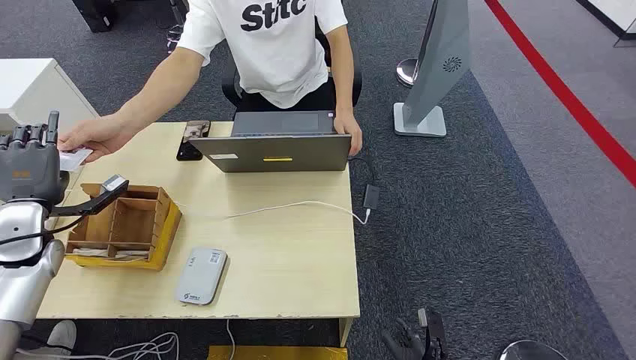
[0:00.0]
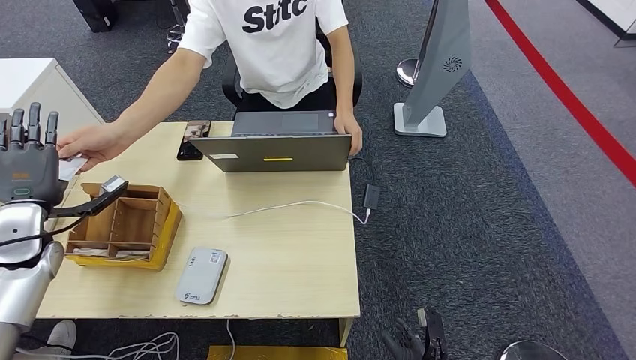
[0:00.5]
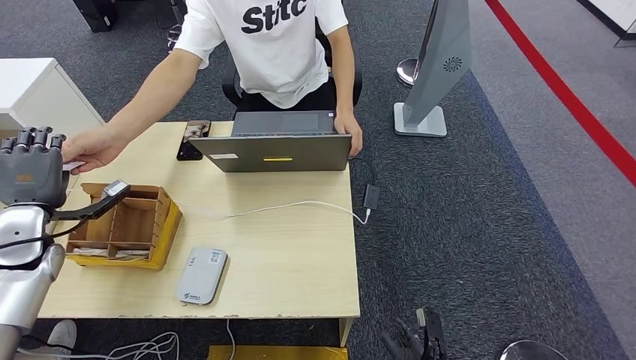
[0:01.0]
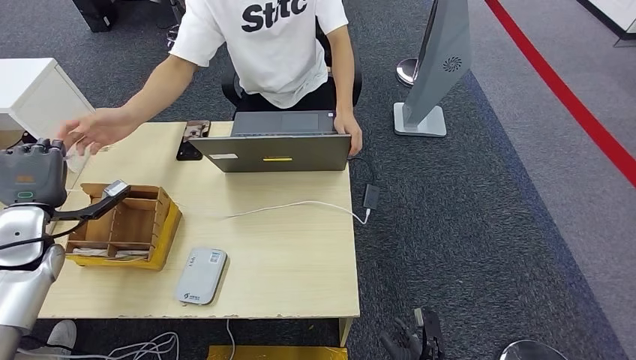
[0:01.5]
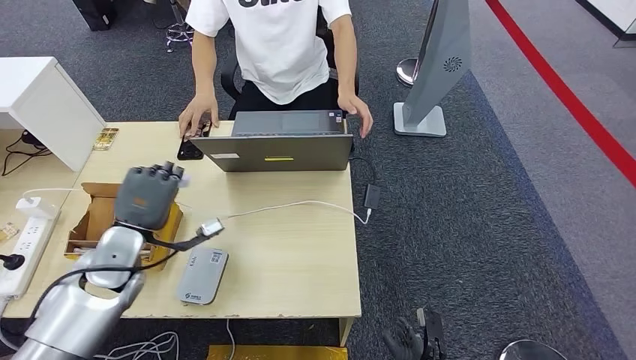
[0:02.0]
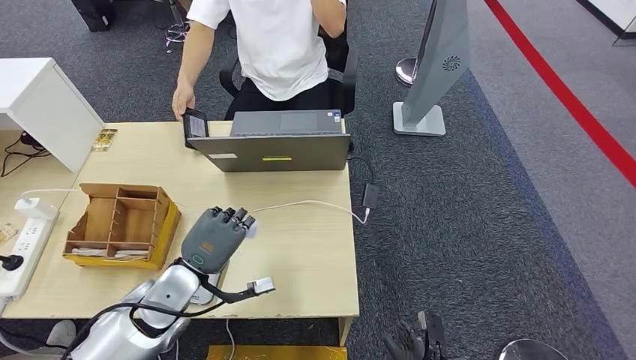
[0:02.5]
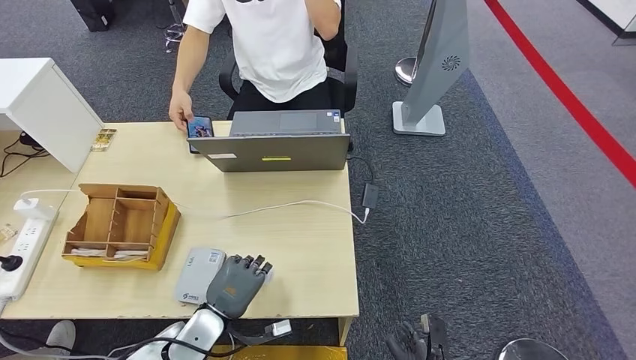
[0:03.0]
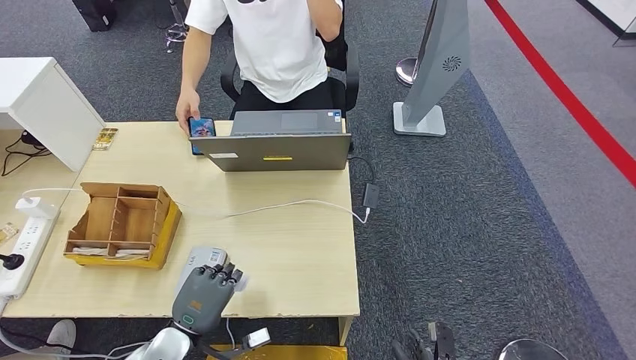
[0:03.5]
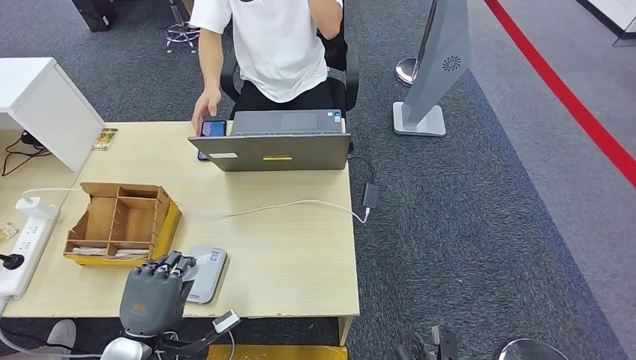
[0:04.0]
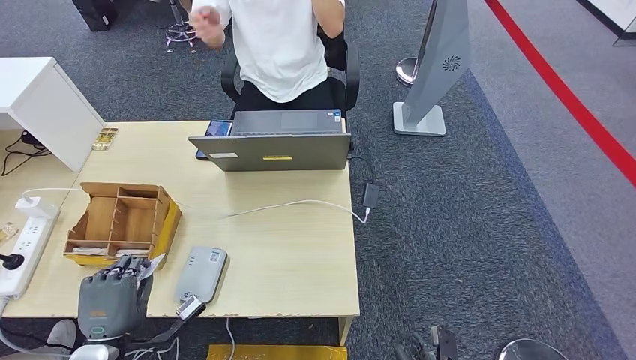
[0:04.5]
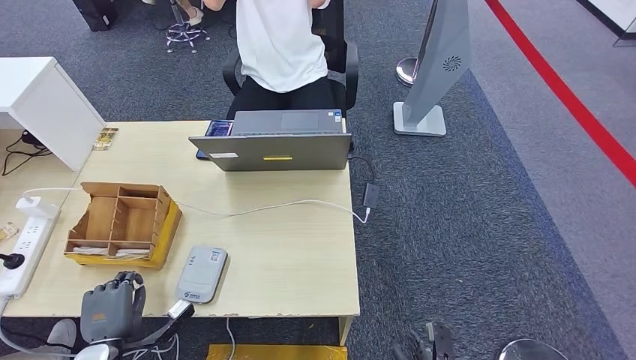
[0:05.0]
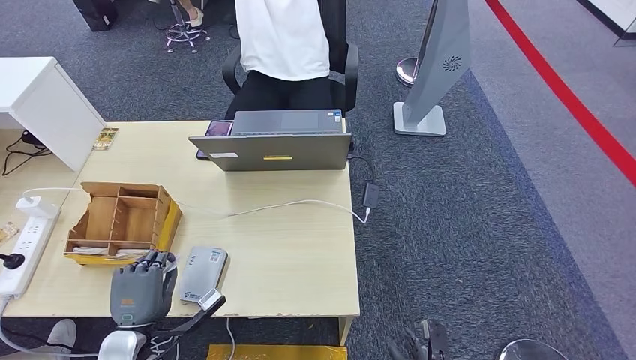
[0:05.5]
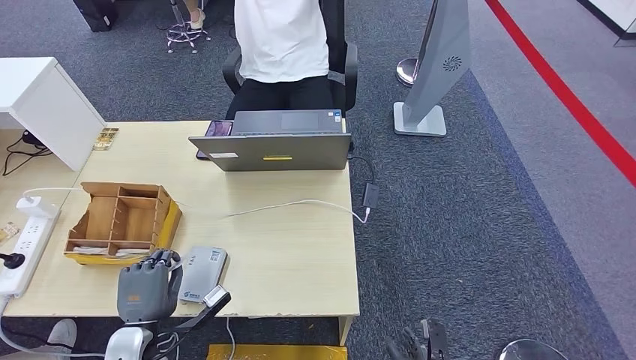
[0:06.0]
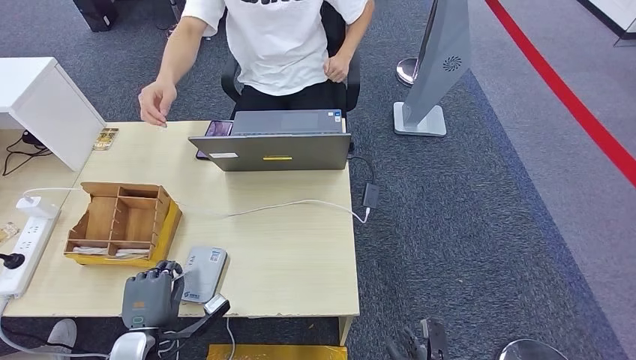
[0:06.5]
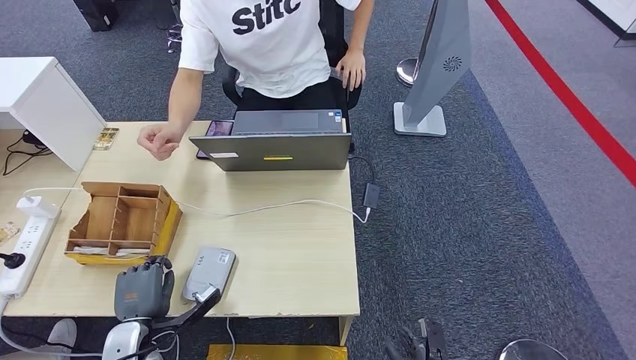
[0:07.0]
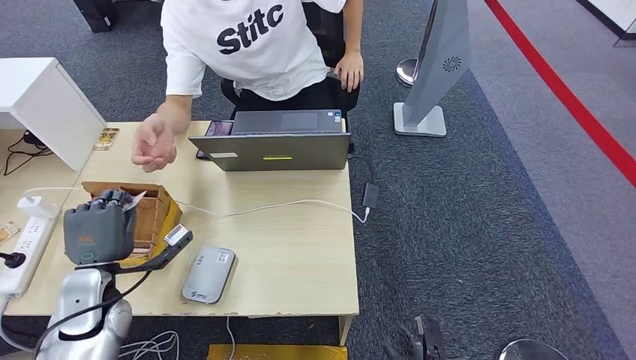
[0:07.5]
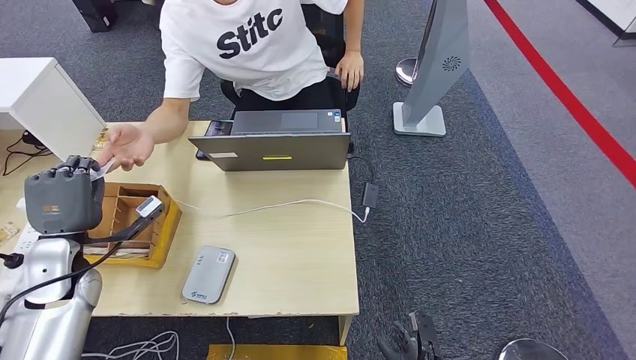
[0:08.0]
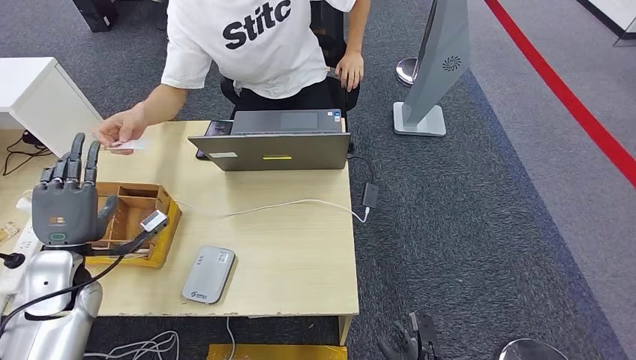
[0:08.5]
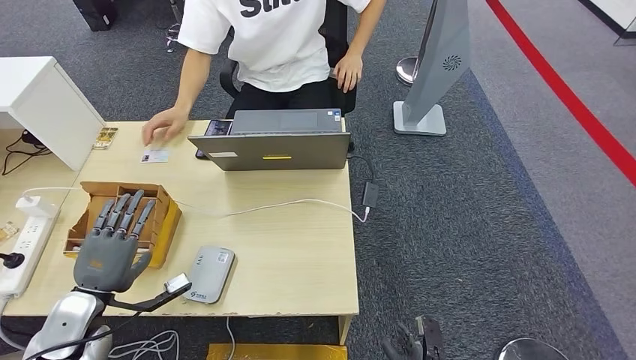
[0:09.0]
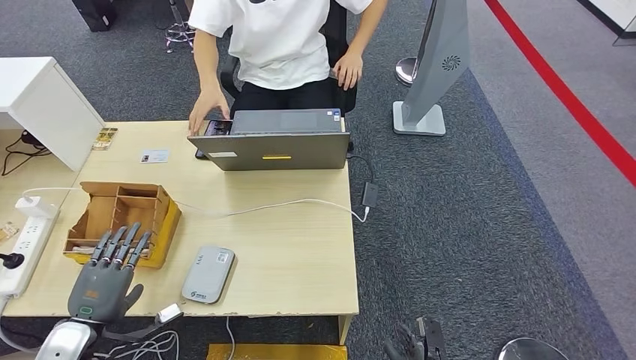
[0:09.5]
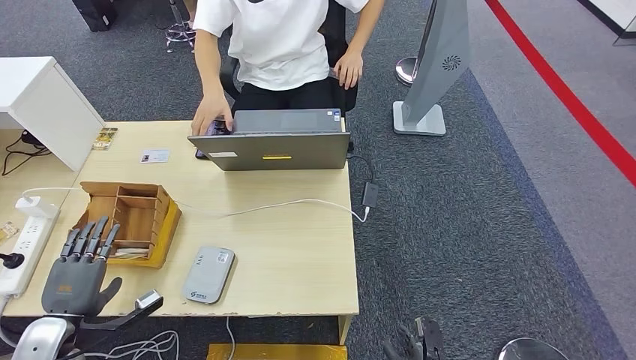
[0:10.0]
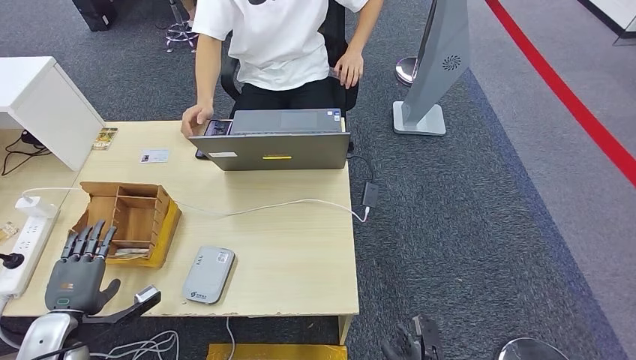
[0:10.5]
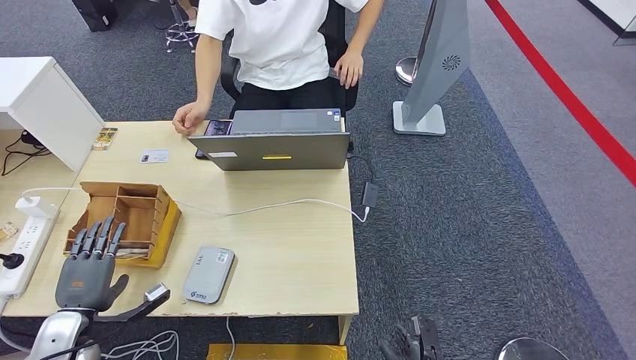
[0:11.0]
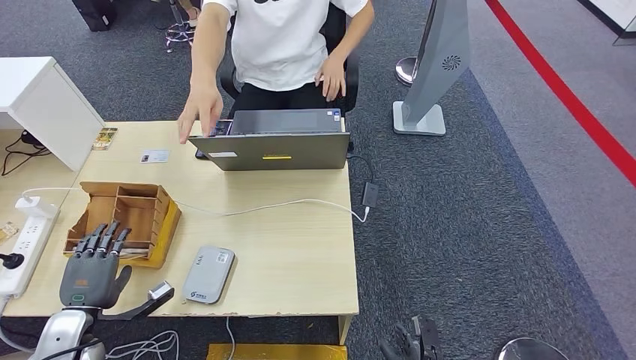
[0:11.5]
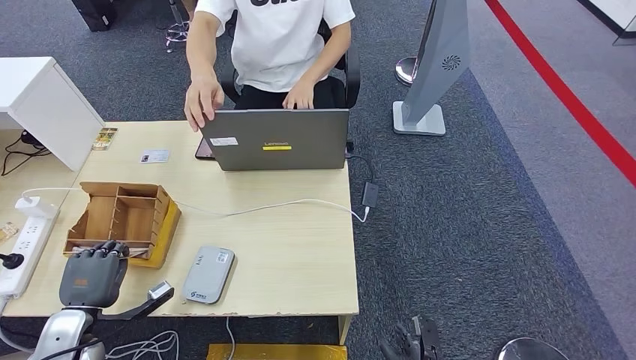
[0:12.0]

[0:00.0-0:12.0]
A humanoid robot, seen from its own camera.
Step, 0:00.0 to 0:02.0: Take the ID card from the person's hand.
Step, 0:02.5 to 0:06.0: Place the ID card on the card reader.
Step, 0:06.5 to 0:09.5: Hand the ID card to the person.
0:02.0 to 0:04.0: The left hand heads backward and downward, covering some 15 cm.
0:04.0 to 0:06.0: The left hand moves about 10 cm to the left and comes back.
0:08.0 to 0:10.0: The left hand is displaced backward and downward by approximately 15 cm.
0:10.0 to 0:12.0: The hands make only small movements.

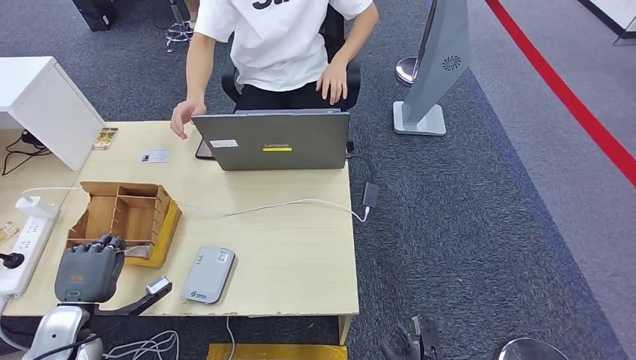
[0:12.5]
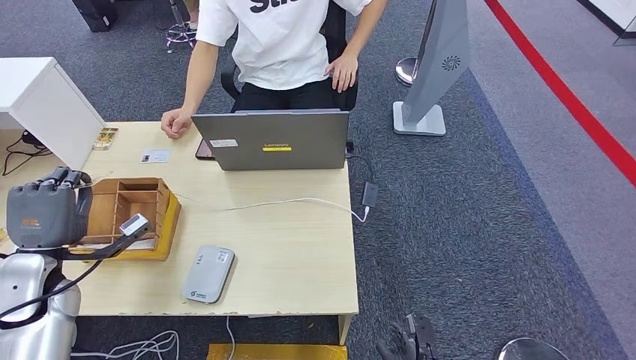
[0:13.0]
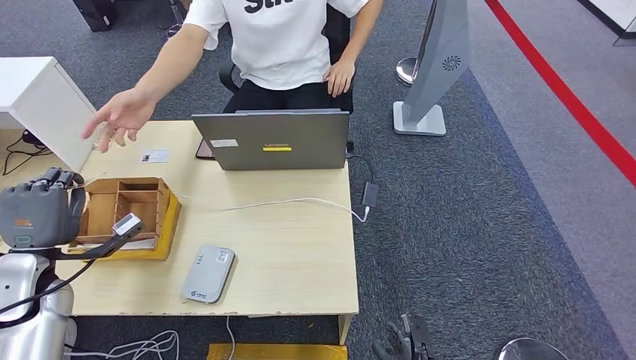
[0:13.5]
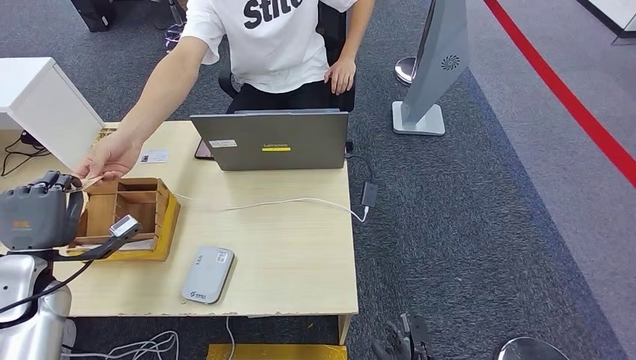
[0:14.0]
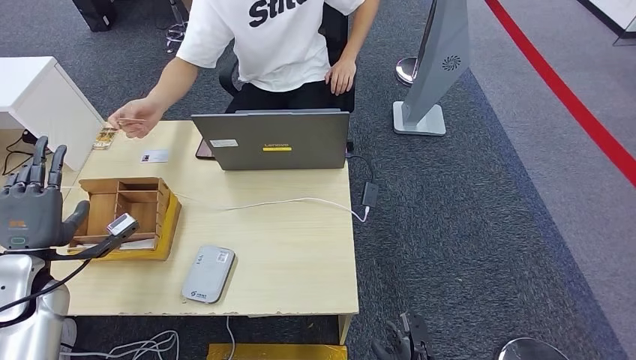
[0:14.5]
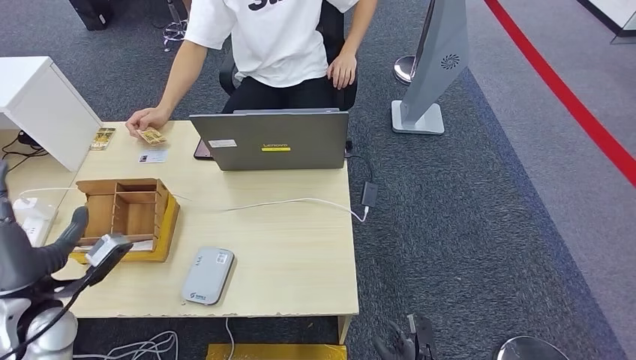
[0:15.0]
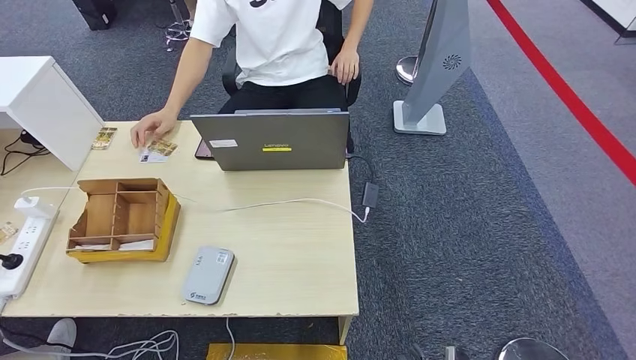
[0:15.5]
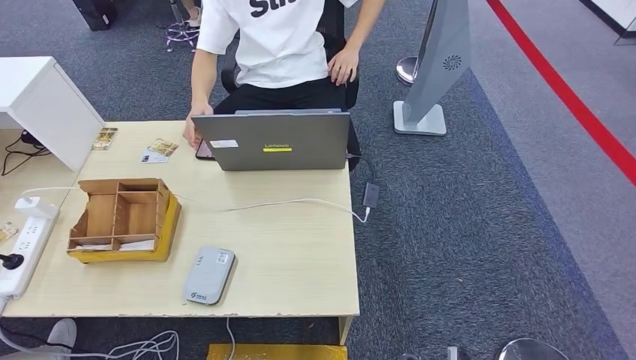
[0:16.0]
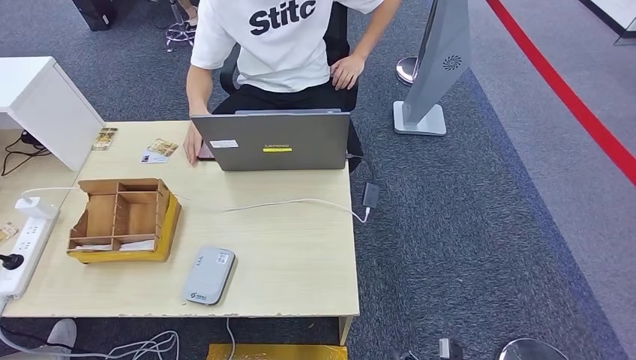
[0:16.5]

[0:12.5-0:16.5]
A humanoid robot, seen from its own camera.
Step, 0:14.0 to 0:16.5: Hand the room key to the person.
0:12.5 to 0:14.5: The left hand moves upward and forward, about 10 cm.
0:14.5 to 0:16.5: The right hand shifts by about 5 cm; the left hand travels backward and downward by some 40 cm.

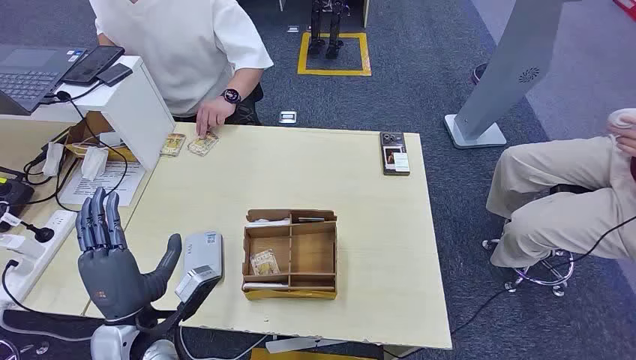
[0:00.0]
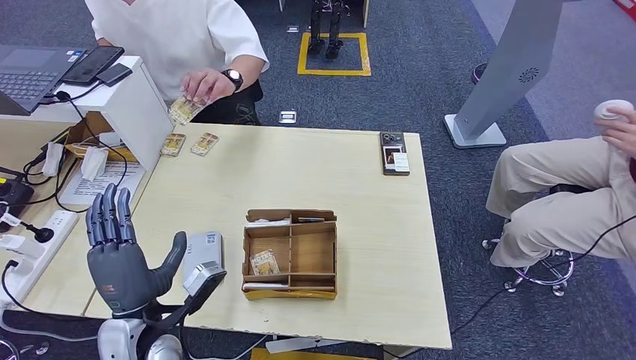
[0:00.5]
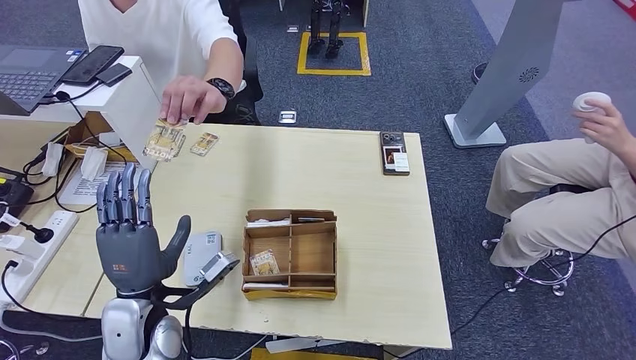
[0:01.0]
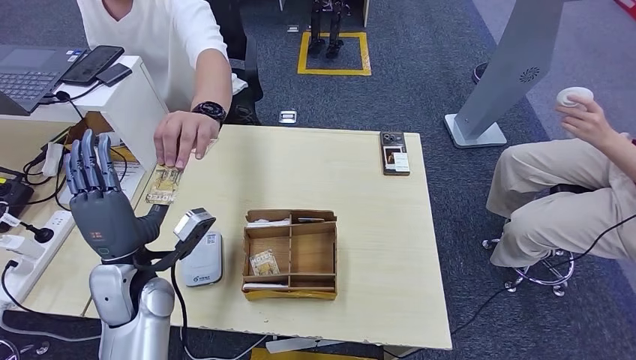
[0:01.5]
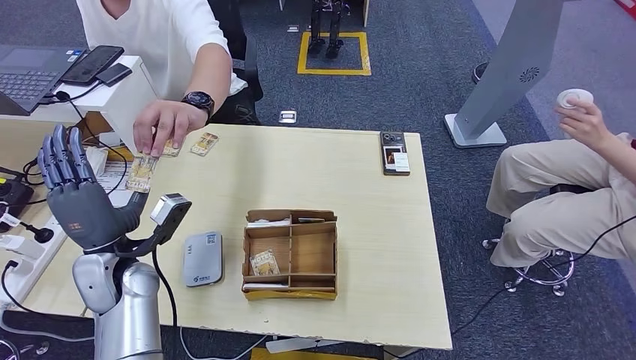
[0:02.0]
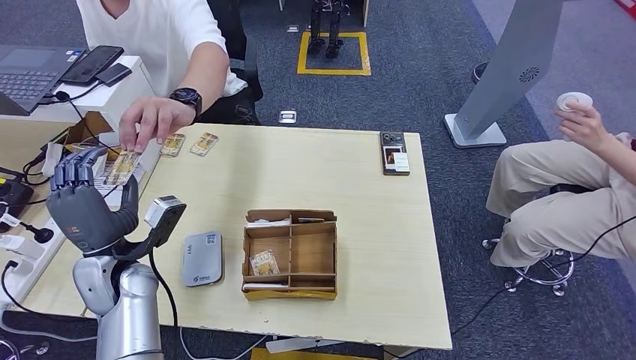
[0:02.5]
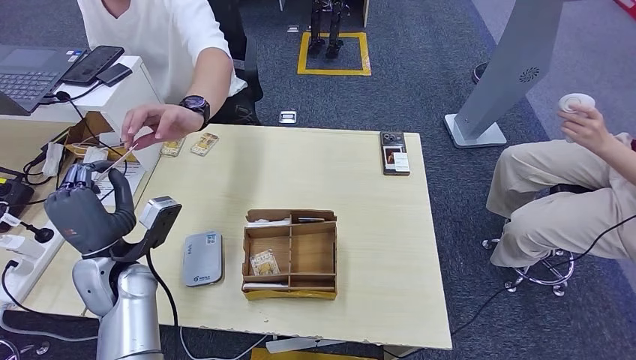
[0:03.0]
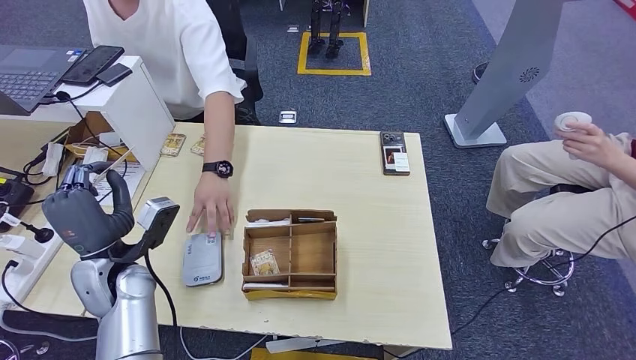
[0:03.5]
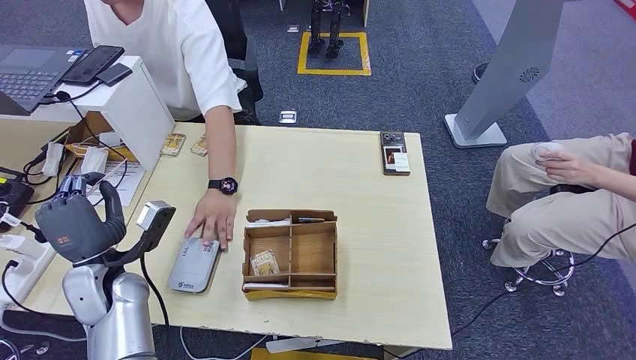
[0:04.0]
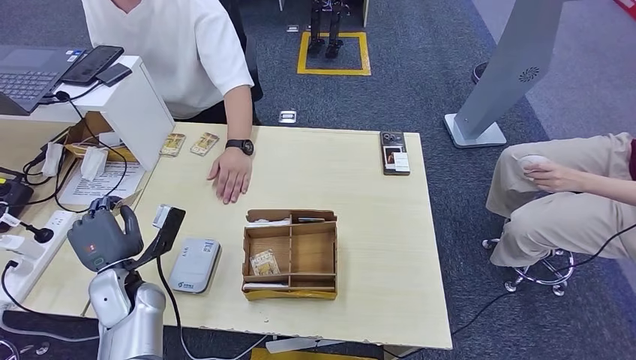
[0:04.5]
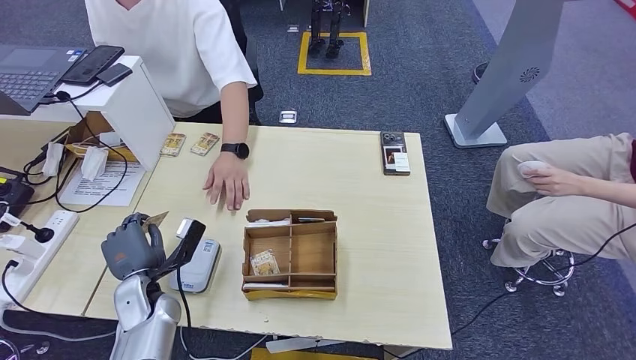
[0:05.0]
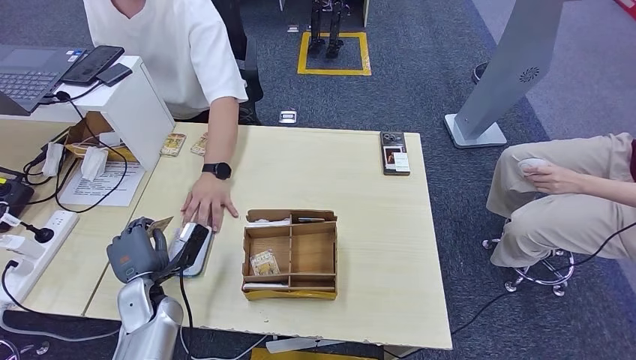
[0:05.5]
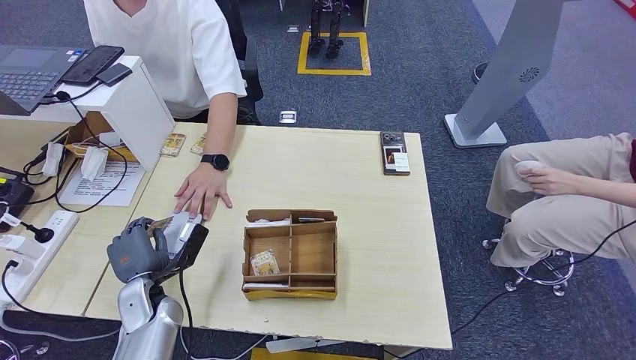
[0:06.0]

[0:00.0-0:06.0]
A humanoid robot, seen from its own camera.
Step, 0:00.0 to 0:03.0: Take the ID card from the person's hand.
0:02.0 to 0:04.0: The hands stay close to where they were, moving slightly.
0:04.0 to 0:06.0: The left hand shifts some 10 cm downward.
